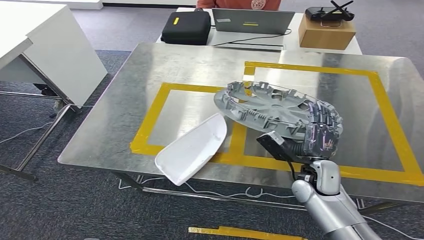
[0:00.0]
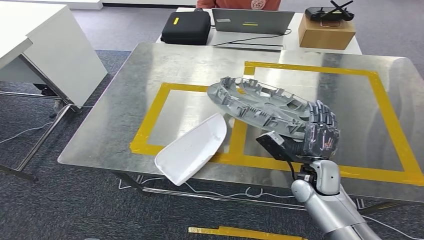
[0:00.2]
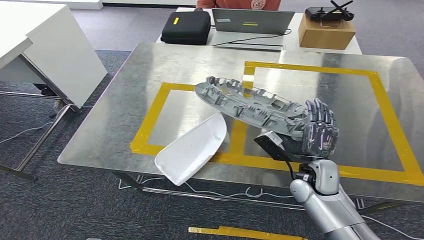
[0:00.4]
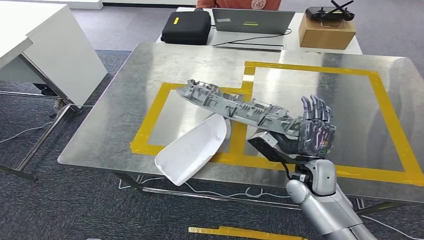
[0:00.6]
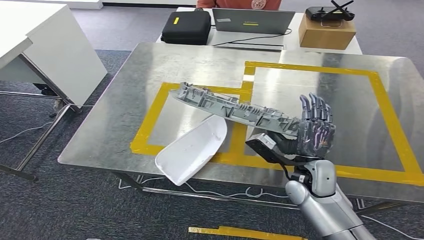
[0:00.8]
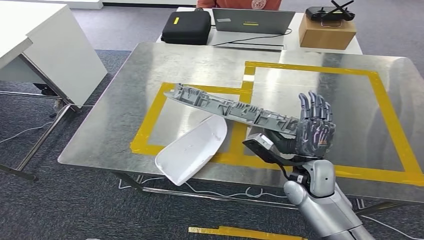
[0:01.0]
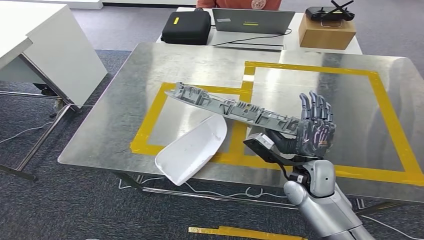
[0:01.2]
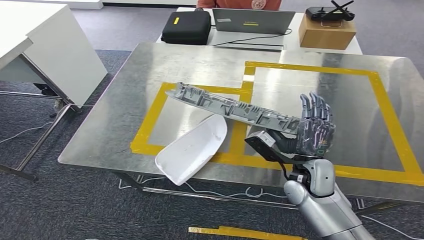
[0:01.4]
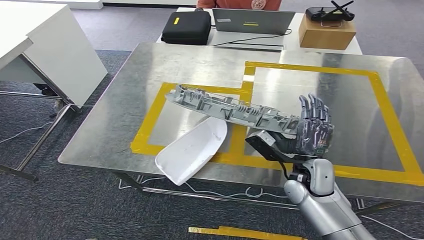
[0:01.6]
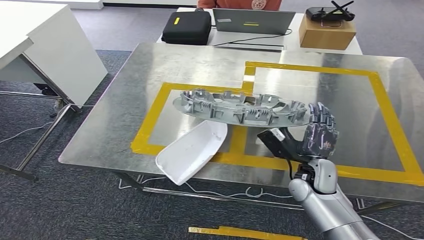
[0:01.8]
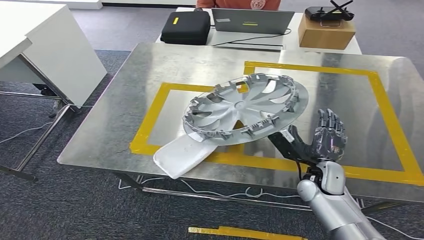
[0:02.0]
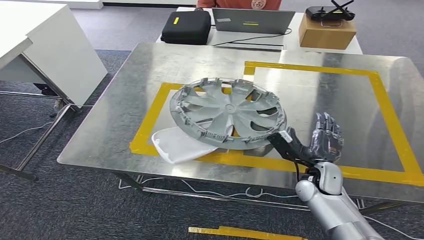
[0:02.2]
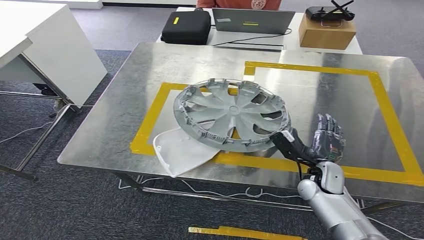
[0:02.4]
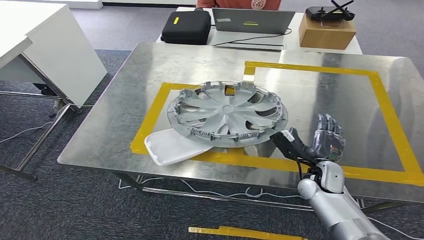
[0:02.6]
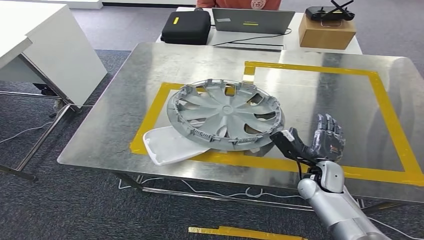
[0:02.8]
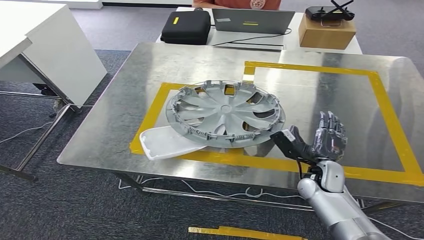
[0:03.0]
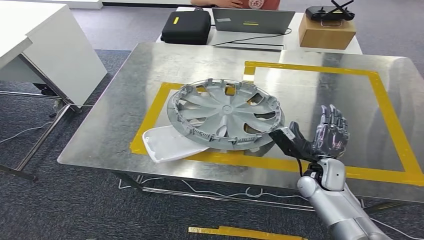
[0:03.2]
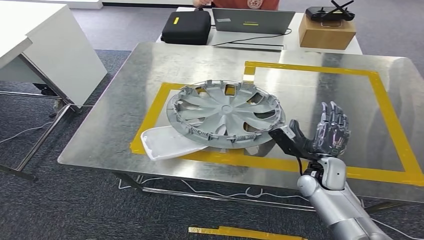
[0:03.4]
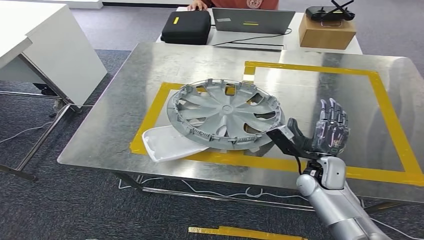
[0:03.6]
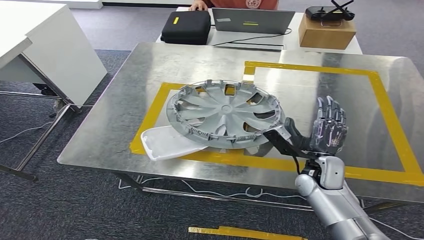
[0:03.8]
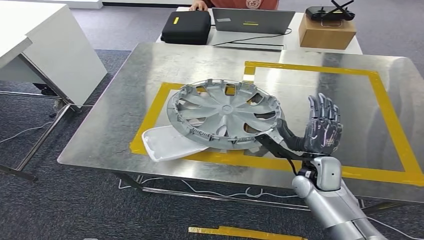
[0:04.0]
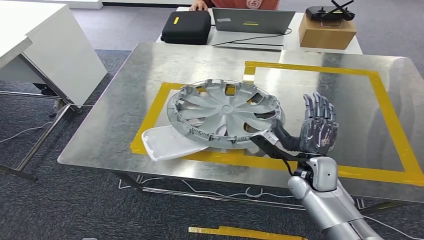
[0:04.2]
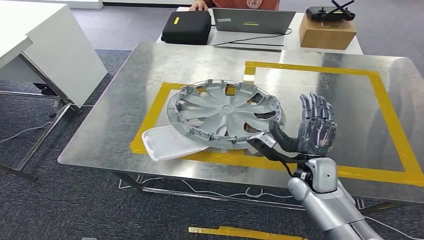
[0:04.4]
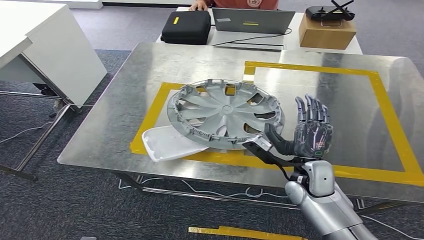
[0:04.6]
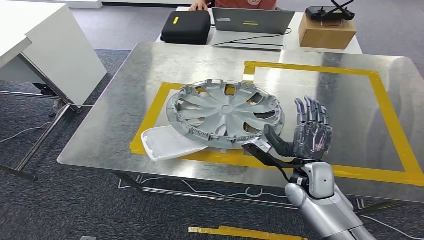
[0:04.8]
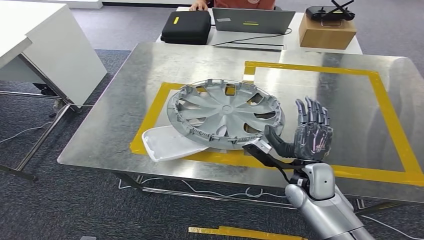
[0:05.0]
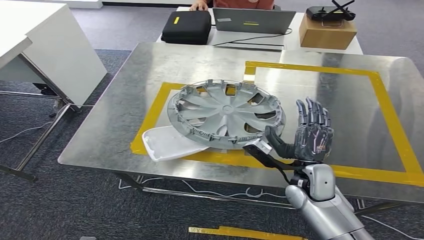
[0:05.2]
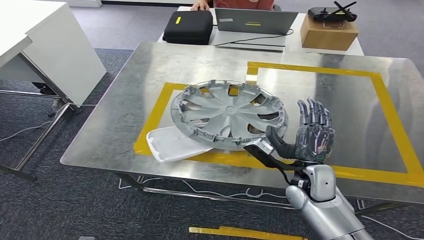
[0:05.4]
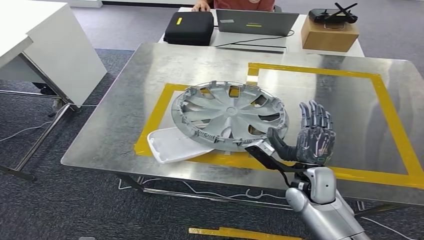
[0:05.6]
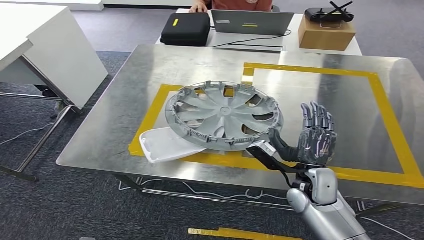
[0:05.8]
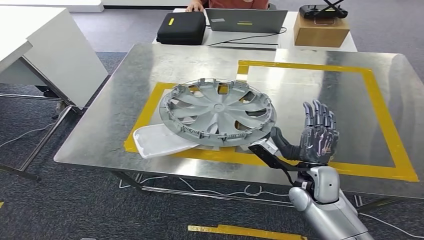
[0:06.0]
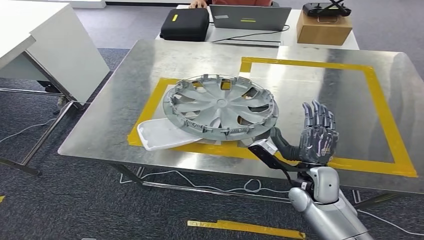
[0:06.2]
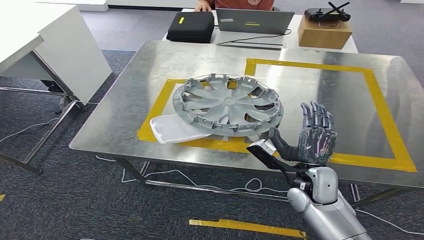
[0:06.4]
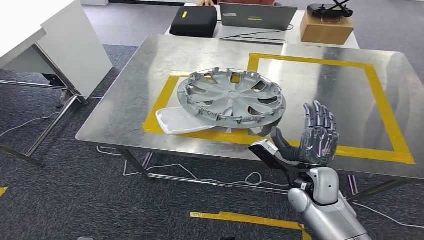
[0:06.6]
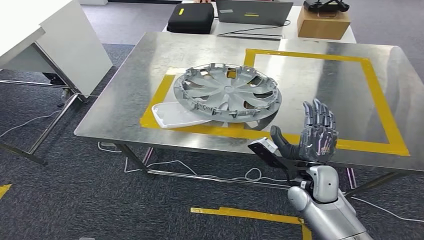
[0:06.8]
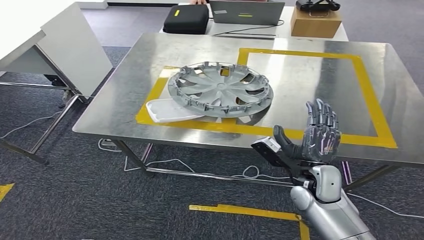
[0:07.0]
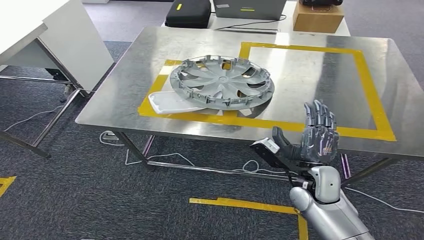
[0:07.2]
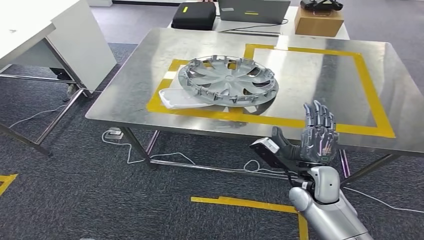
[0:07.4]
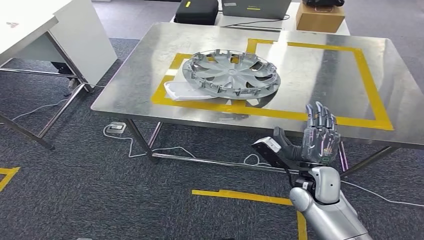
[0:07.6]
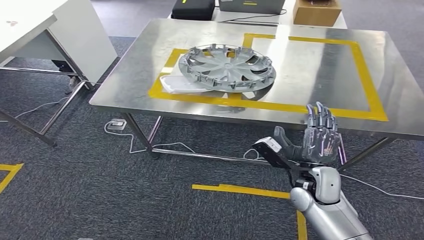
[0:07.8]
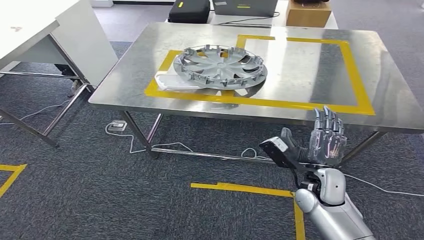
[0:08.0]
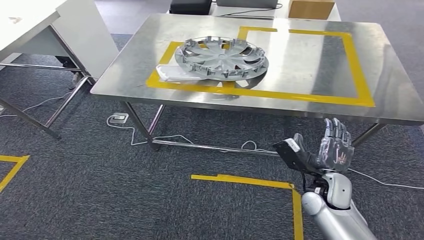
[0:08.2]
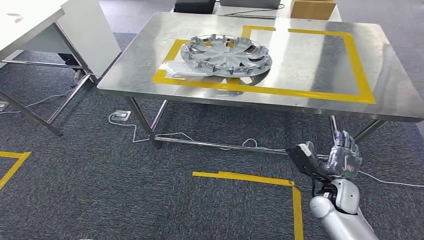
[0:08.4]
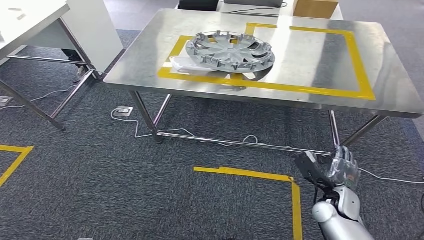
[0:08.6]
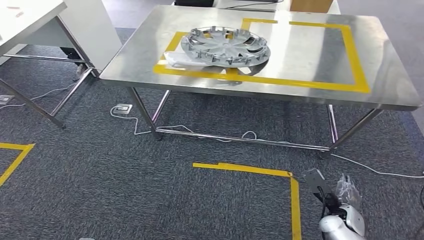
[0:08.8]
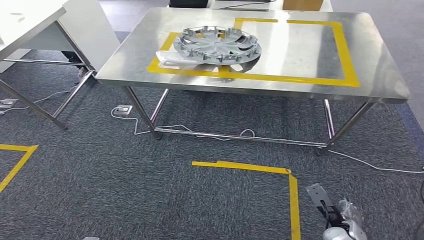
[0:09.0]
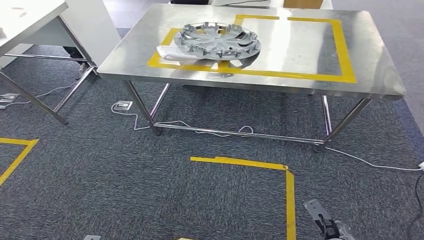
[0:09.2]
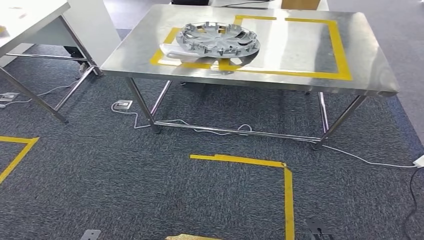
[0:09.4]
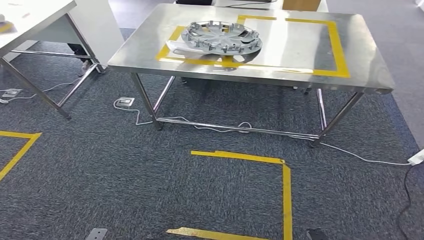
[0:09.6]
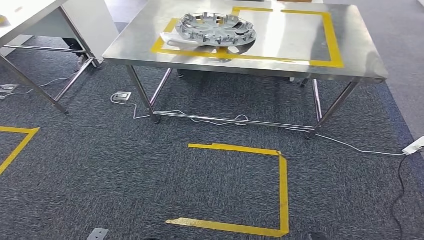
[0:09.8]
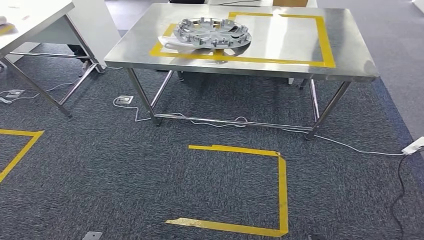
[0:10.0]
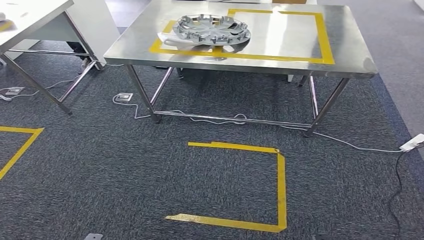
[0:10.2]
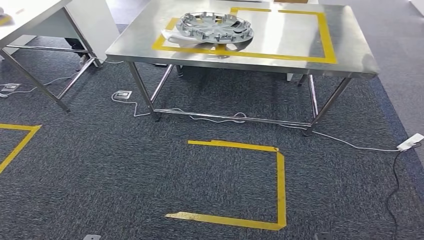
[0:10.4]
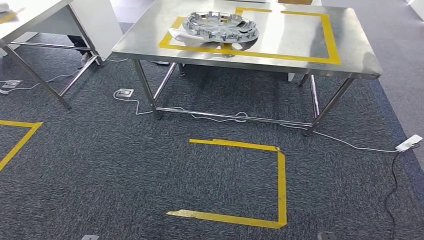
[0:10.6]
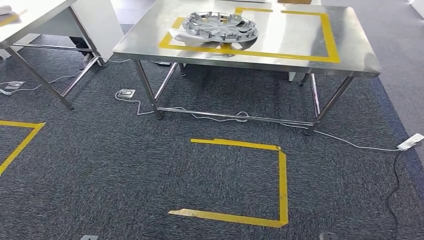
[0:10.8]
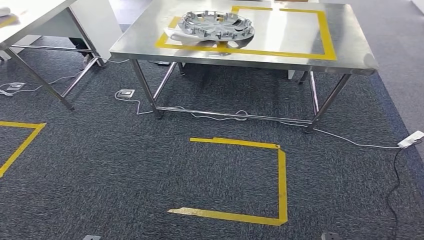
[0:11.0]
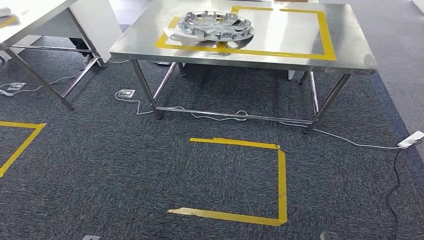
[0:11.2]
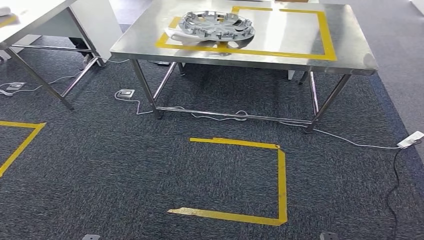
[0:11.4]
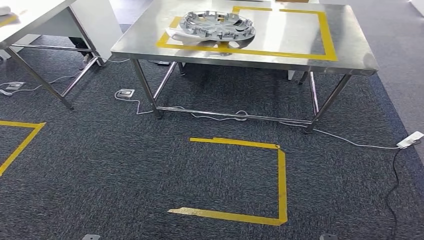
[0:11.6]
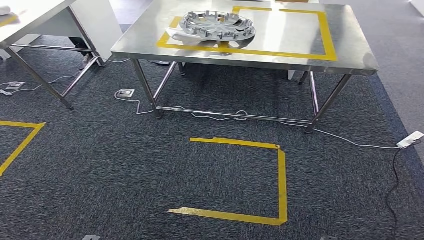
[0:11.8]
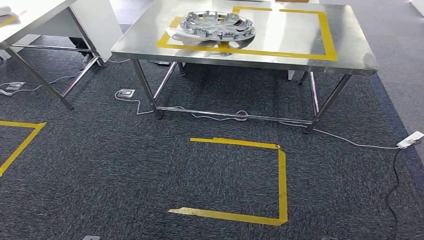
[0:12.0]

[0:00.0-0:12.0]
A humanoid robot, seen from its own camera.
Step, 0:00.0 to 0:04.8: Insert the small component into the corresponding slot on the workbench.
0:00.0 to 0:01.6: The hands move only a little.
0:01.6 to 0:03.0: The right hand goes some 10 cm downward and to the right.
0:03.0 to 0:04.4: The right hand shifts roughly 5 cm upward.
0:10.4 to 0:12.0: The hands move only a little.

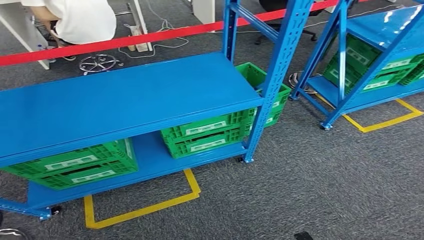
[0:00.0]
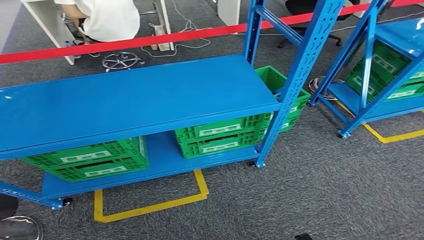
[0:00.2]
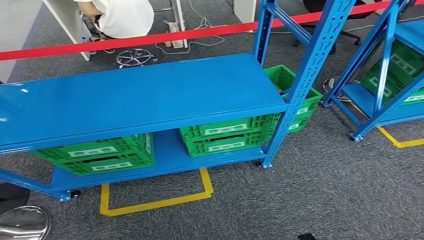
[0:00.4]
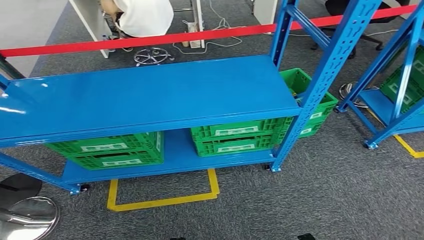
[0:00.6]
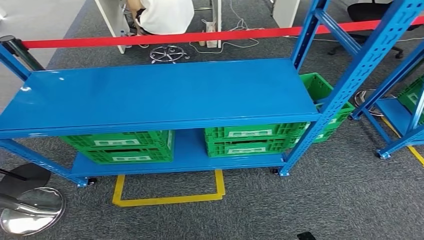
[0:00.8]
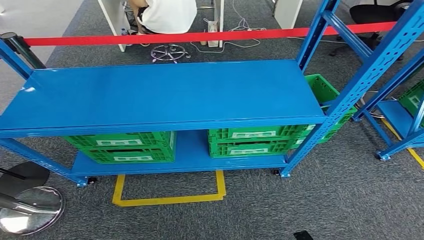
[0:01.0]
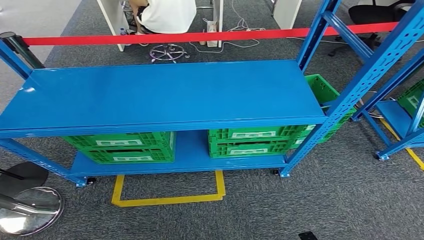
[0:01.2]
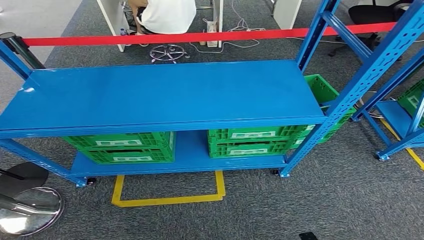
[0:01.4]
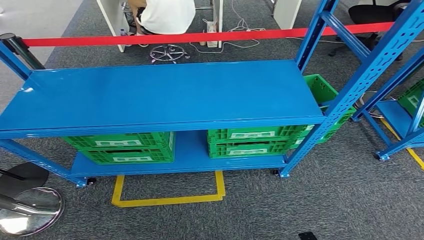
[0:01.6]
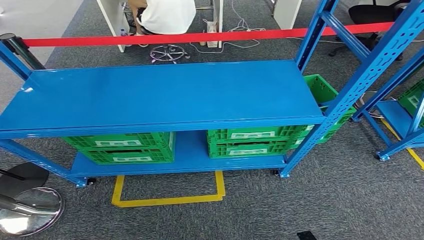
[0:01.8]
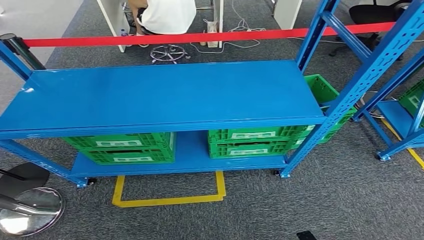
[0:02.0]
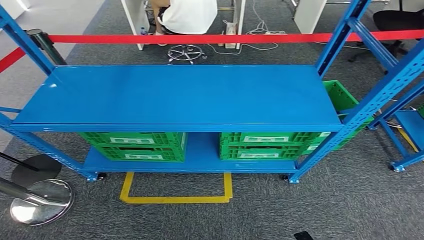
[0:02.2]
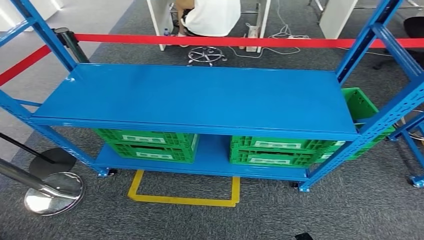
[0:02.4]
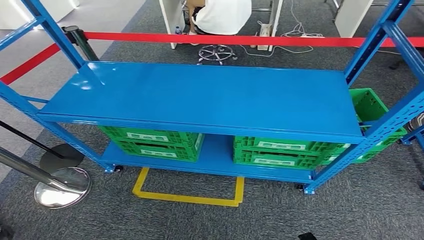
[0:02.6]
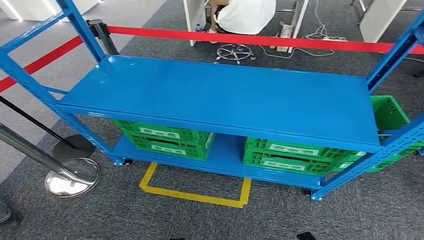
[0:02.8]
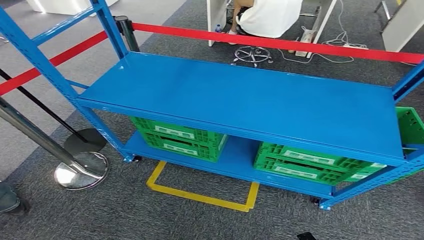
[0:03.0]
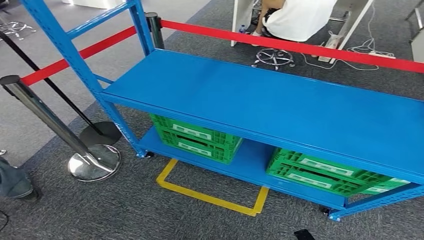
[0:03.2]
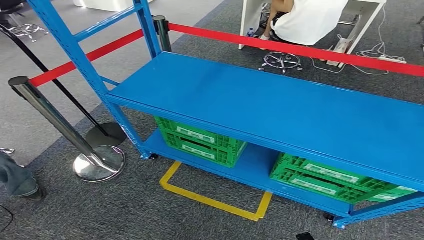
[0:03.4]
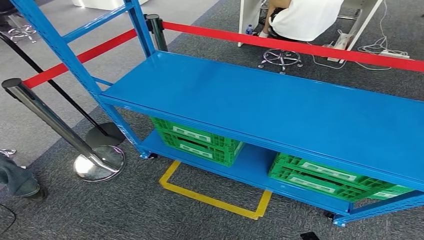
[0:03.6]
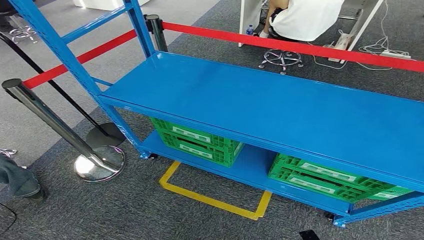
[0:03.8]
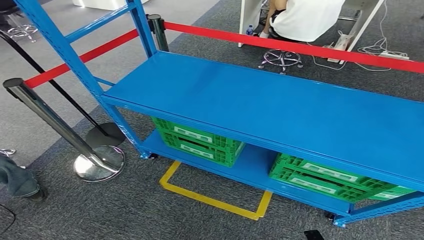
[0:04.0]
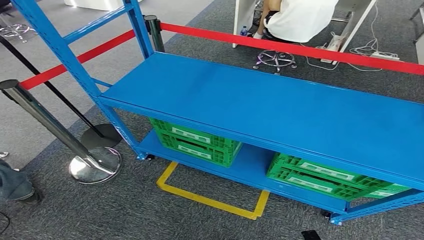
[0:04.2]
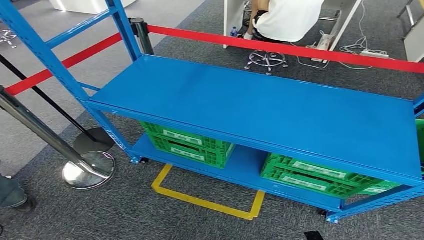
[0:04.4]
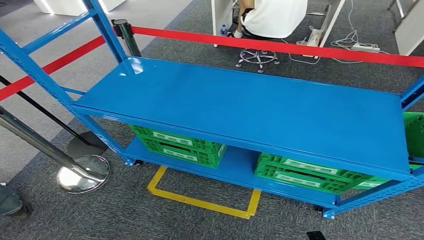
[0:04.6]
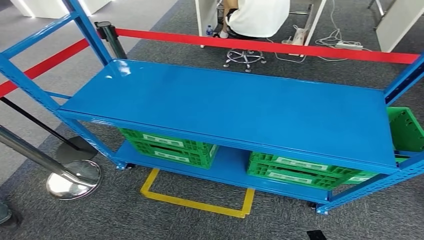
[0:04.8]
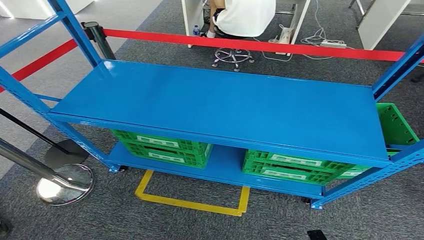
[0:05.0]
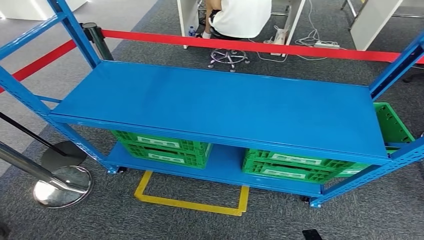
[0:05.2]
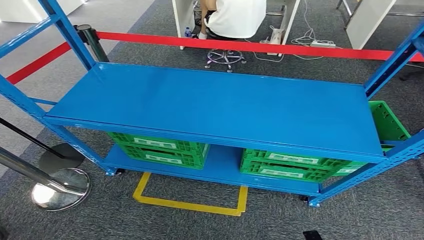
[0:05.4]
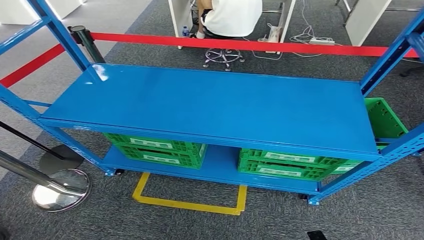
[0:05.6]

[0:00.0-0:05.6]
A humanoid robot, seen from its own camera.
Step, 0:00.0 to 0:05.6: Return to the initial position at the workbench.
